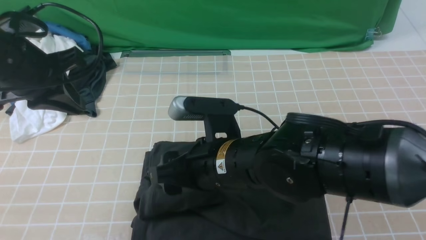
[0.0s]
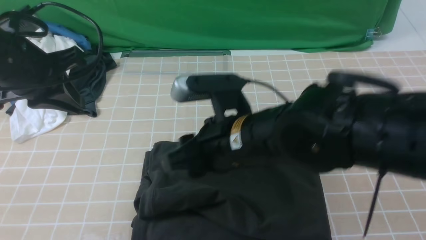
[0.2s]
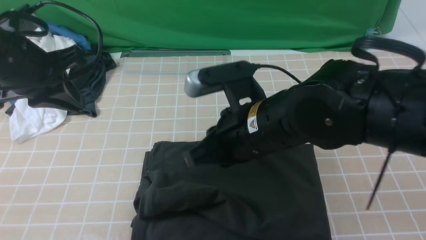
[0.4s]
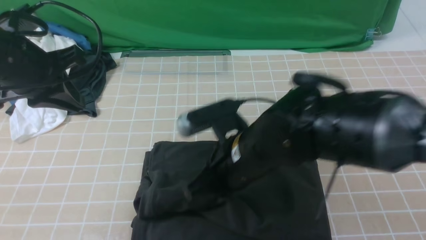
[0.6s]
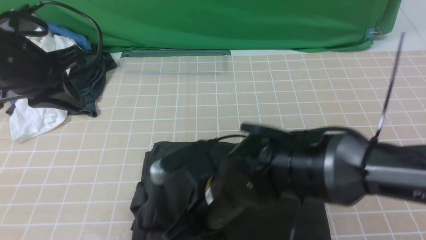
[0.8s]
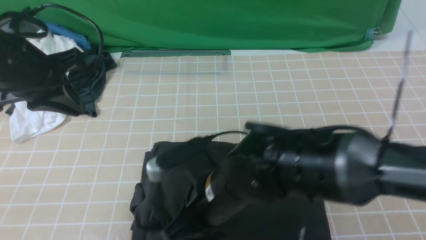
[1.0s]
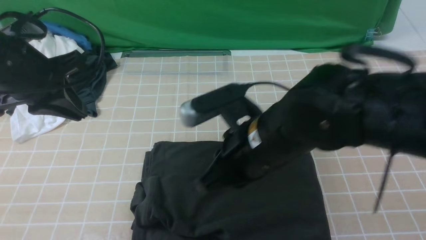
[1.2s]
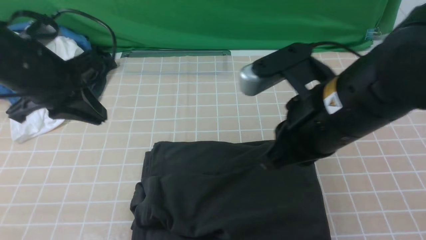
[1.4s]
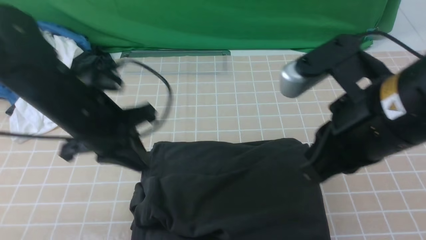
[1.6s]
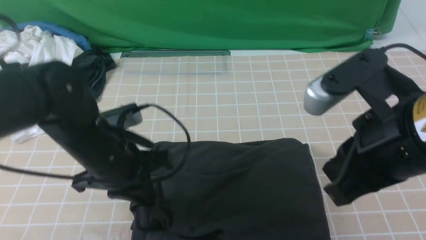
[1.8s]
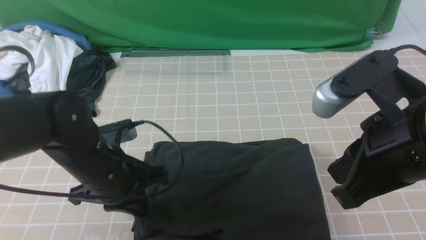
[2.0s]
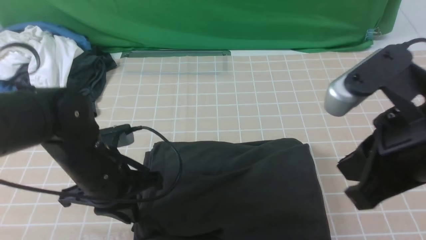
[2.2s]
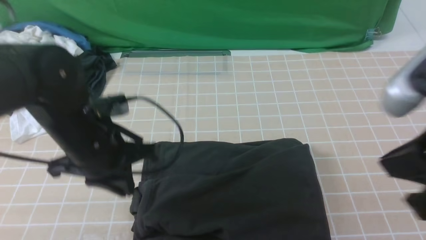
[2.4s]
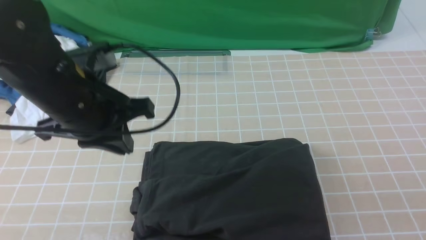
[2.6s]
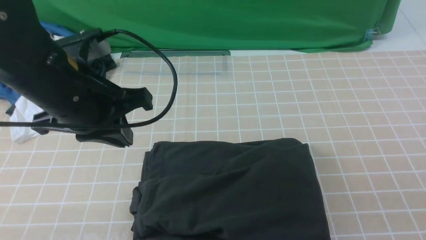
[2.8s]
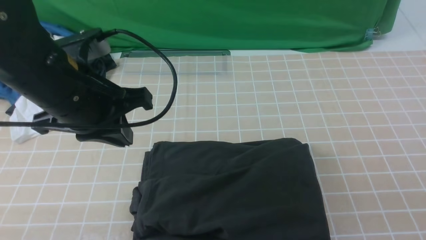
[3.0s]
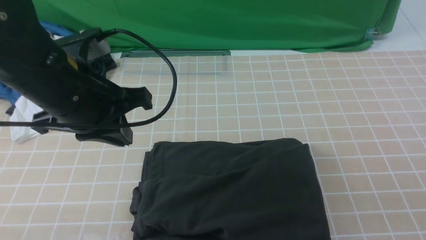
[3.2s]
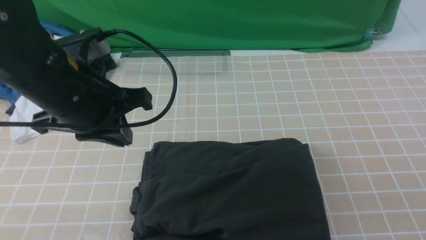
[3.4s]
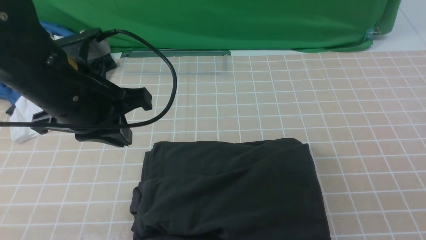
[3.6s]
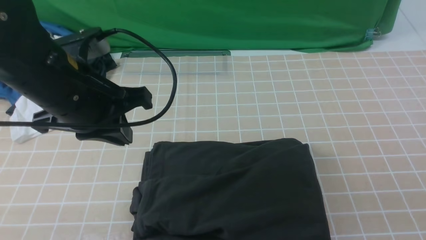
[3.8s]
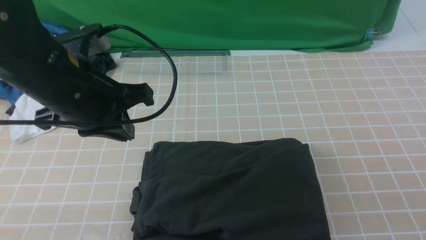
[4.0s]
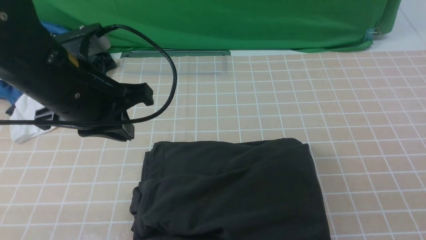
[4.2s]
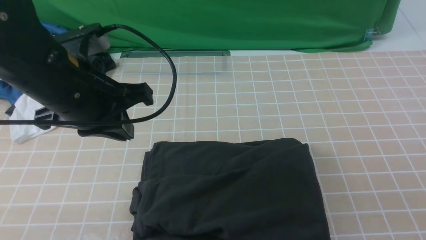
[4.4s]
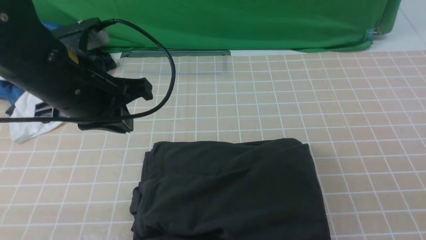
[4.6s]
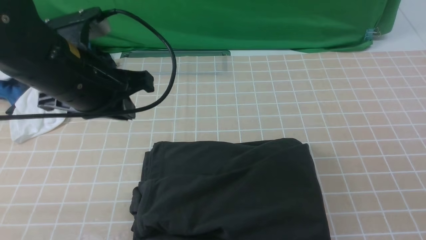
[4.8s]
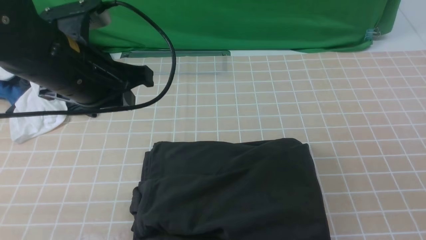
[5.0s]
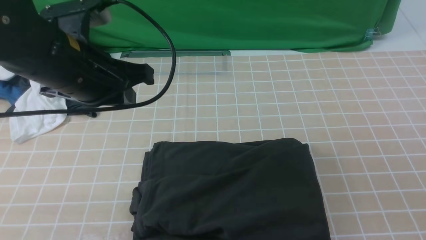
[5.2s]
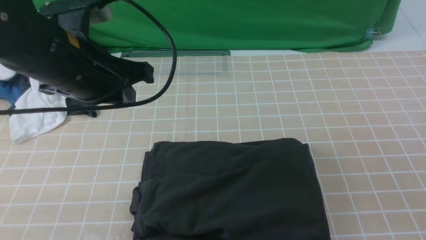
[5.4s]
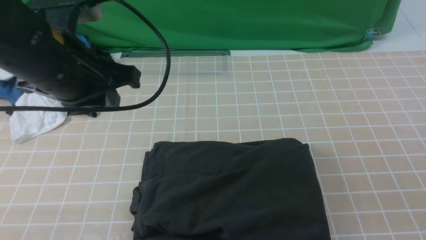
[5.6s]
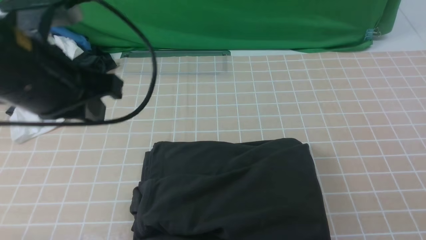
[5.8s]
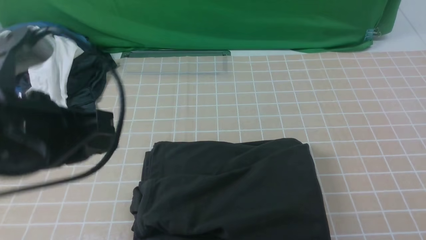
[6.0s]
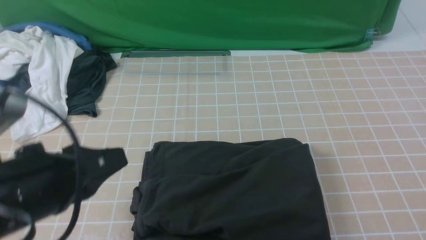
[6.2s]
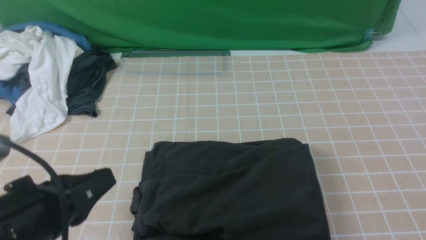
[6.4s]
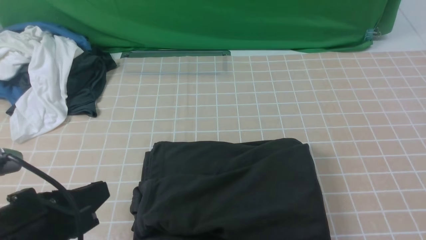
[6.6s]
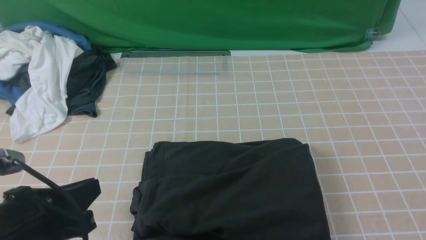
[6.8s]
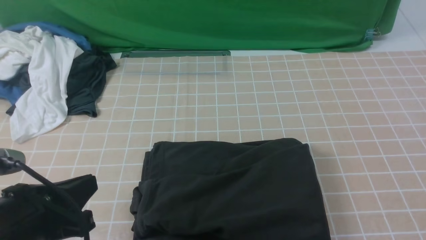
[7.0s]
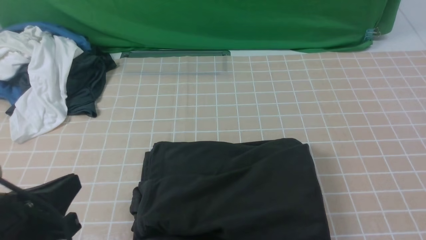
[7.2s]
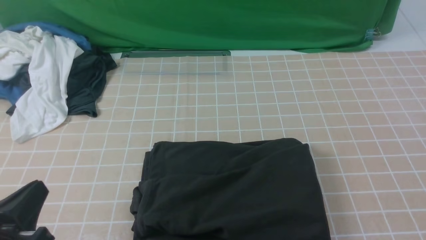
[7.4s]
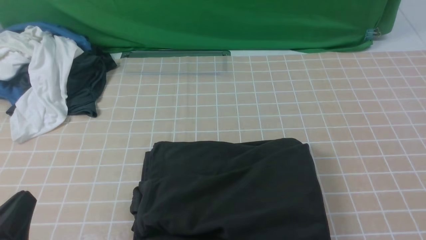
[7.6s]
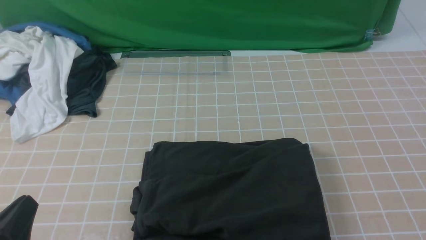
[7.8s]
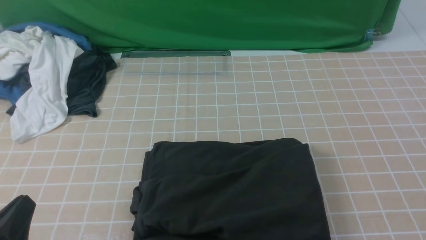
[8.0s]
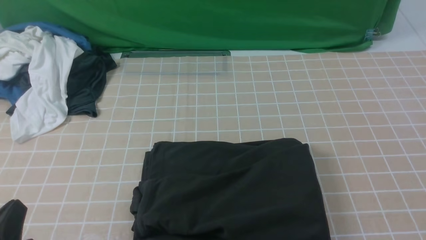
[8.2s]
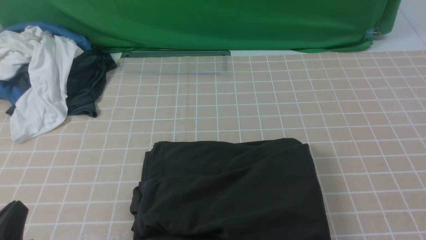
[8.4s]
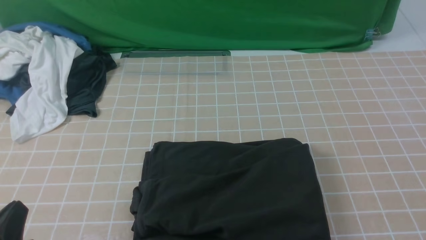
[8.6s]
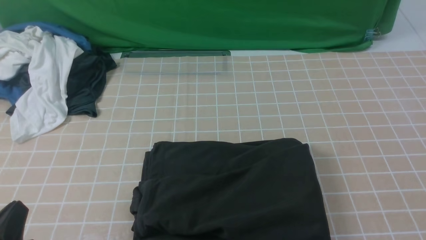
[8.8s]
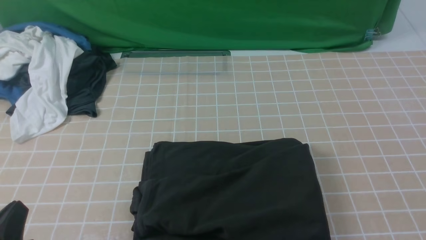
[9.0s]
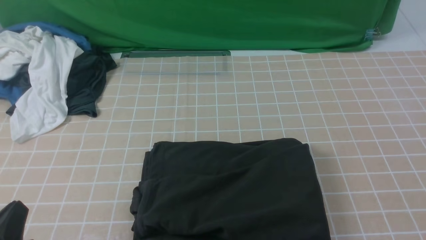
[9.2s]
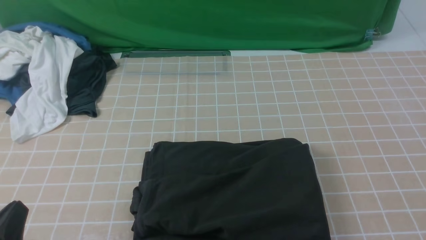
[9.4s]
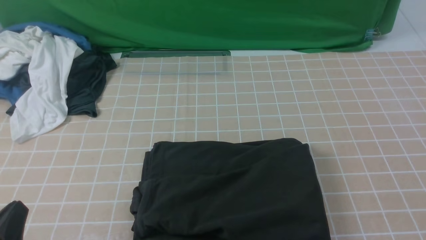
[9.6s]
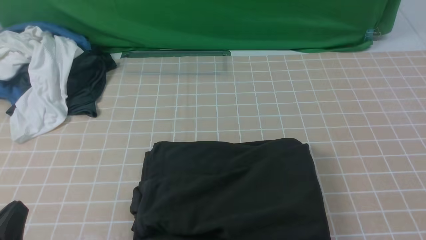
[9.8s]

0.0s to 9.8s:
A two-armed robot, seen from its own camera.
0.0s to 1.4s: The right gripper goes roughly 10 cm to the right and upward, and closes its fingers, while the left gripper changes place by roughly 5 cm.
1.4s to 2.8s: The right gripper heads to the right and backward, covering approximately 30 cm. The left gripper heads to the right, covering about 5 cm, and reaches about 10 cm downward, then returns.
2.8s to 4.2s: The right gripper travels downward by approximately 5 cm.
4.2s to 5.6s: The right gripper heads downward, covering roughly 15 cm.
5.6s to 7.0s: The left gripper goes approximately 20 cm backward and downward.
7.0s to 8.4s: The left gripper shifts roughly 5 cm downward.
8.4s to 9.8s: Both grippers stay about where they are.

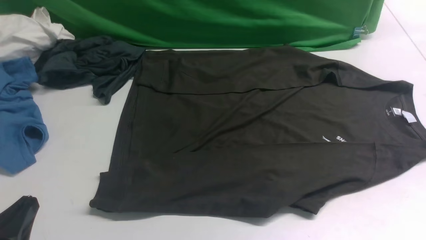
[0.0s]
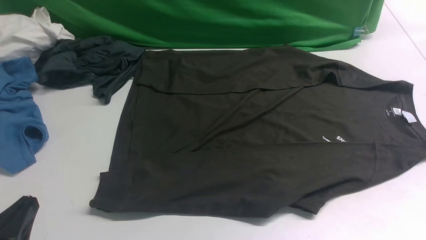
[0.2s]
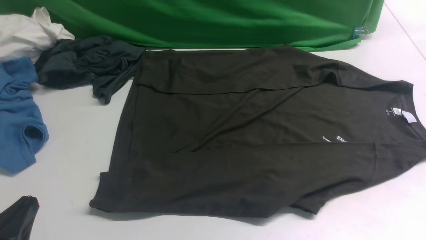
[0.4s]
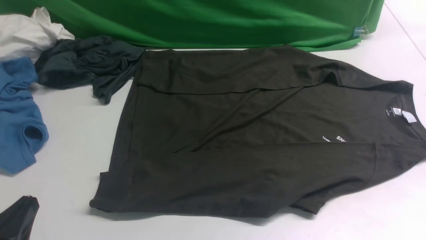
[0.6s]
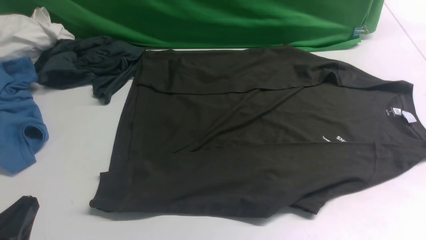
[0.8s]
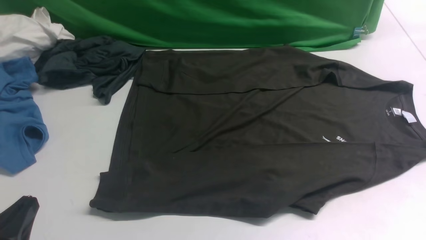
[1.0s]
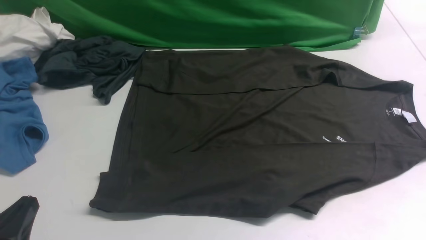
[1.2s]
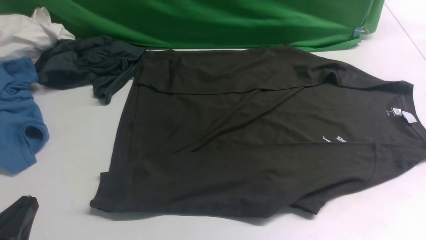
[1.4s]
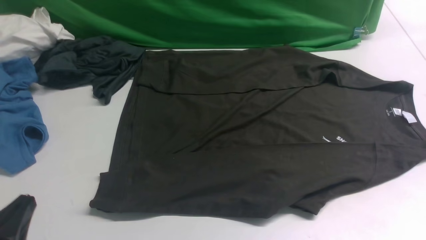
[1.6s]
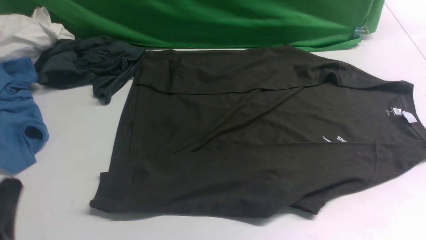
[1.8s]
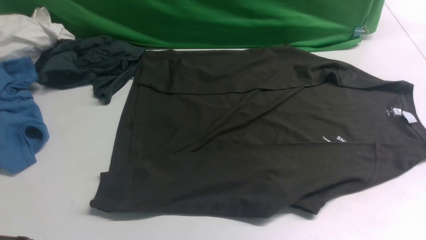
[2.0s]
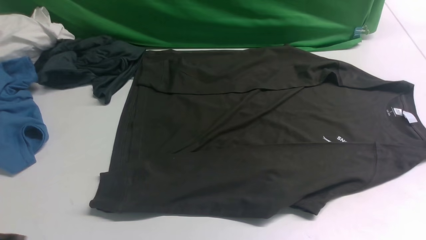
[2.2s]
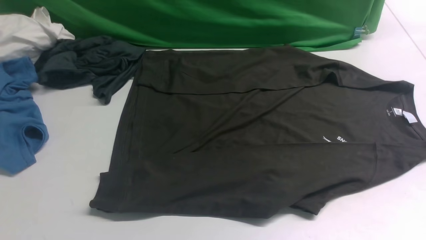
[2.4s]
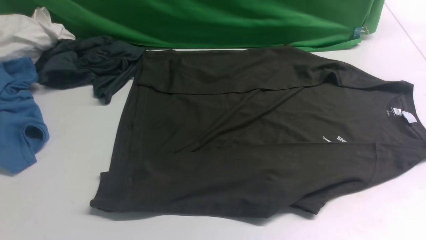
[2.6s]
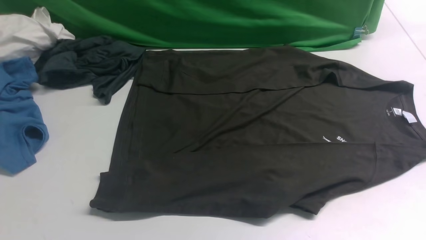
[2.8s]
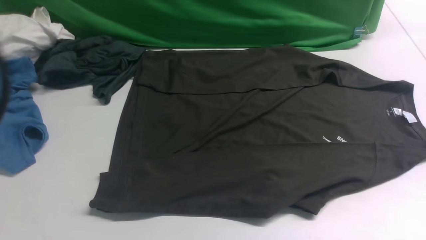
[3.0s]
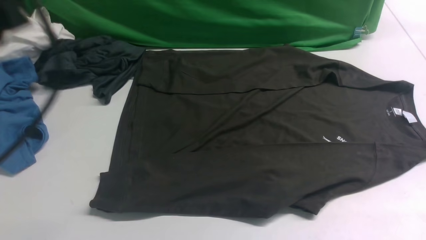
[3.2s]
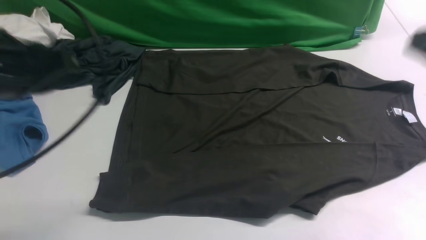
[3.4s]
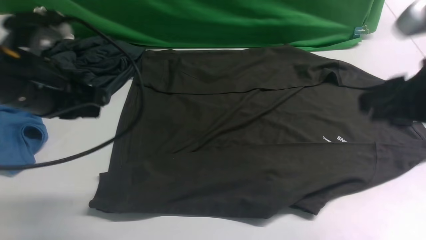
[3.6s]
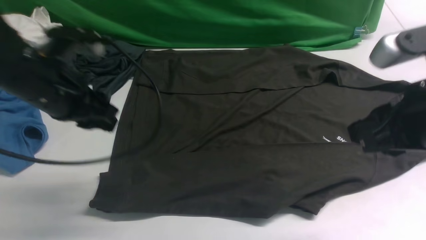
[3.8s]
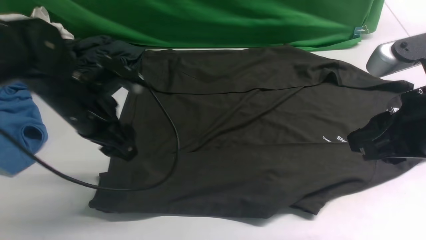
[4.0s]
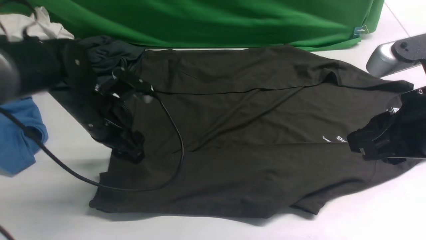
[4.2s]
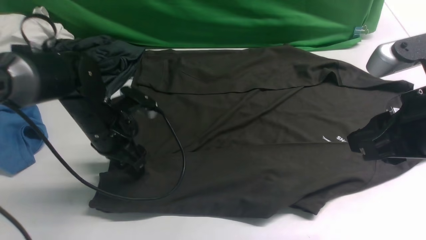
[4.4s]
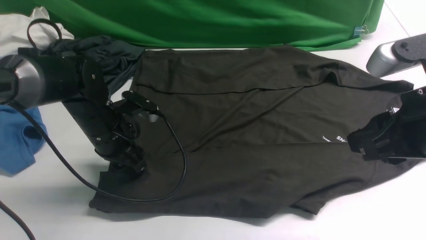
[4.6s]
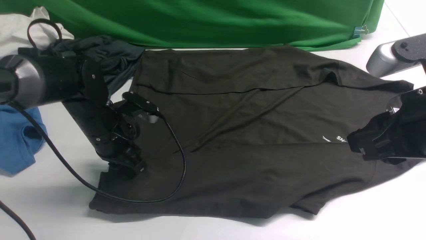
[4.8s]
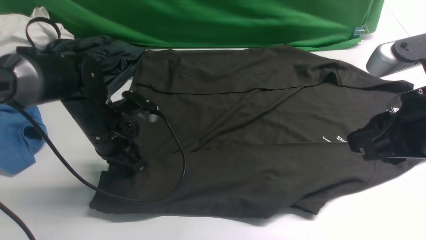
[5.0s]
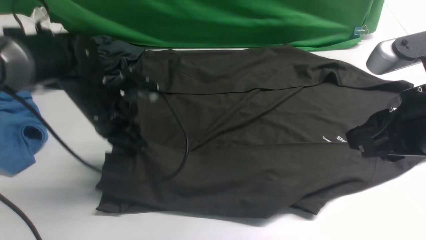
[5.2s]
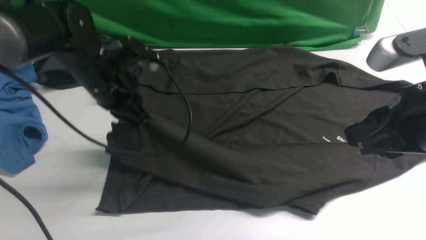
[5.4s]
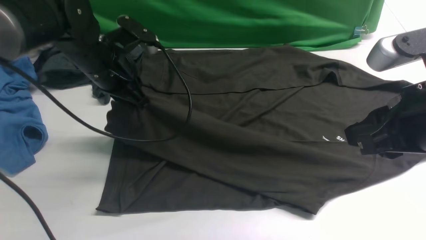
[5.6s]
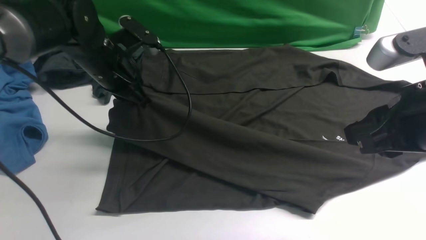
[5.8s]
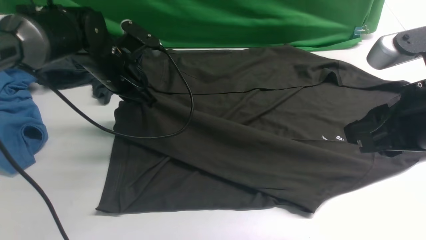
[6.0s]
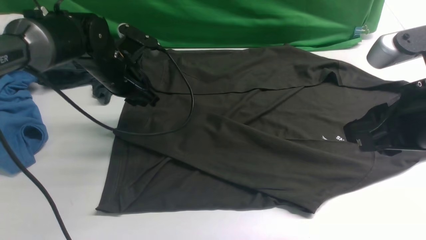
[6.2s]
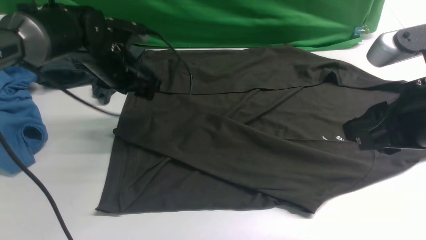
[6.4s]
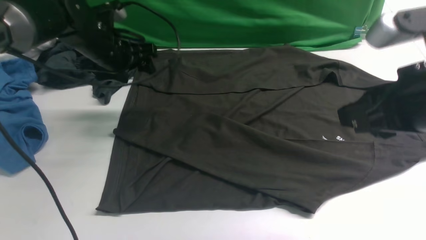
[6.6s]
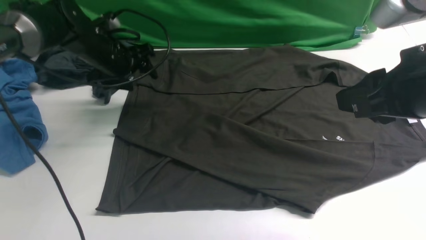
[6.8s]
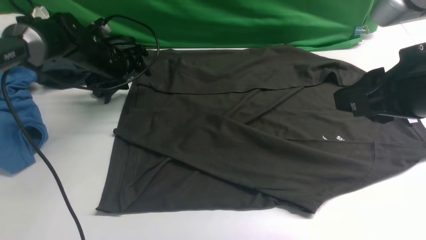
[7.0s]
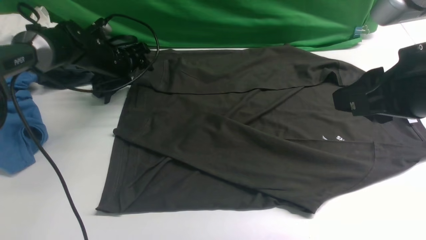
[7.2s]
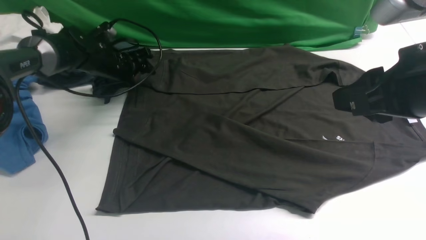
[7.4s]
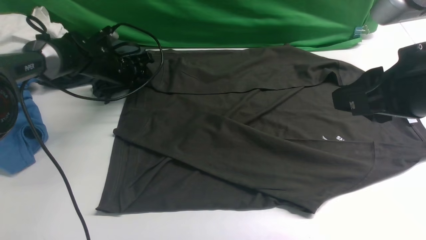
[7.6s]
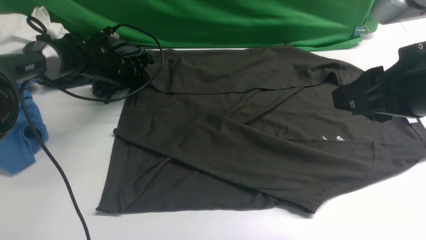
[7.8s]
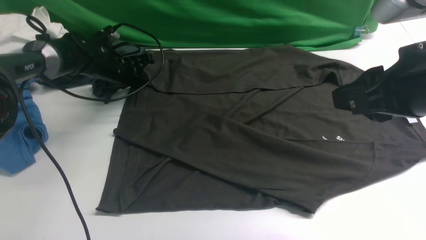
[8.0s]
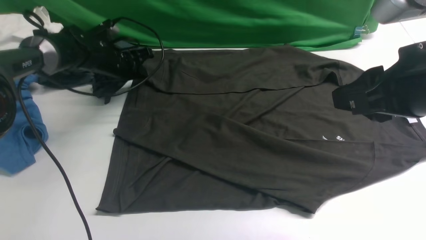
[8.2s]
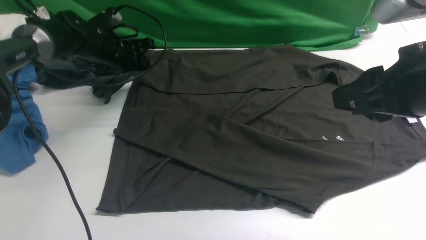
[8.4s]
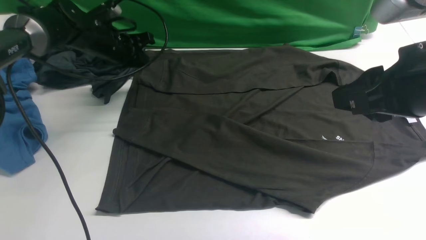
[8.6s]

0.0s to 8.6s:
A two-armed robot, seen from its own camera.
Step, 0.0s to 5.0s: use the left arm to clamp the cuff closest to it.
Step, 5.2s to 6.6s: use the left arm to drag and place the cuff at the centered position on the left edge of the fabric.
0.0s to 1.4s: The two grippers keep their place.
1.4s to 2.8s: The left gripper moves upward, about 20 cm.
2.8s to 4.4s: The right gripper travels to the left, downward and forward by approximately 15 cm. Meanwhile the left gripper goes approximately 35 cm downward and forward, and opens up.
4.4s to 5.8s: The left gripper is displaced forward and upward by about 10 cm, and closes up.
5.8s to 7.2s: The left gripper moves forward, downward and to the left, about 15 cm, and opens its fingers.
7.2s to 8.6s: The left gripper closes.
